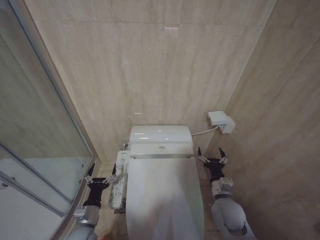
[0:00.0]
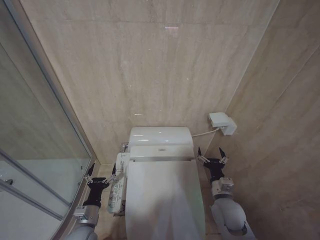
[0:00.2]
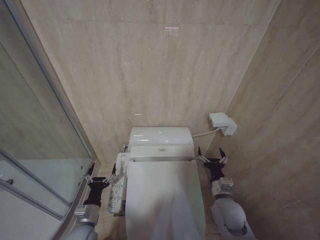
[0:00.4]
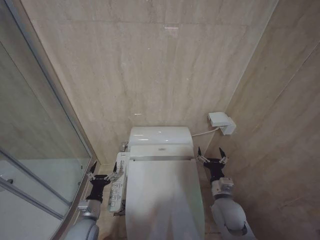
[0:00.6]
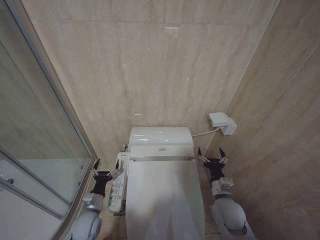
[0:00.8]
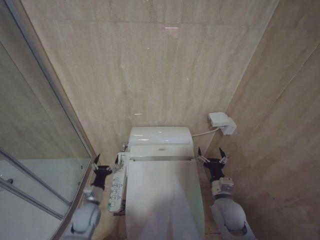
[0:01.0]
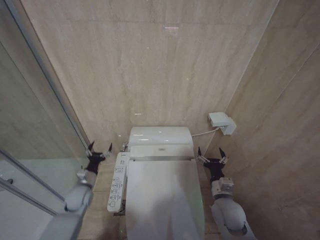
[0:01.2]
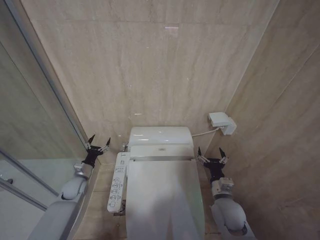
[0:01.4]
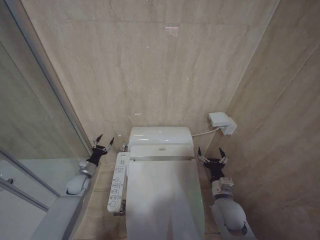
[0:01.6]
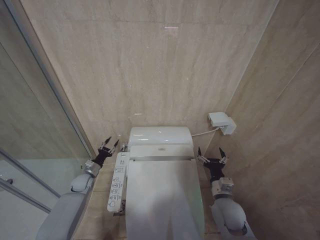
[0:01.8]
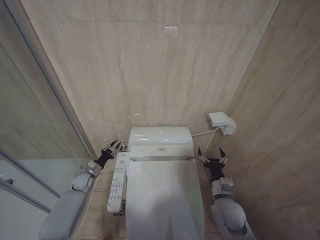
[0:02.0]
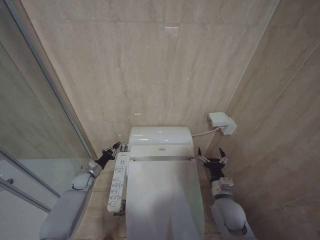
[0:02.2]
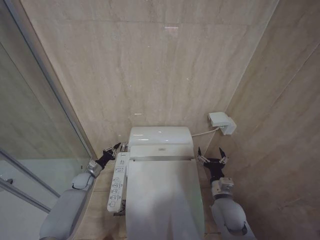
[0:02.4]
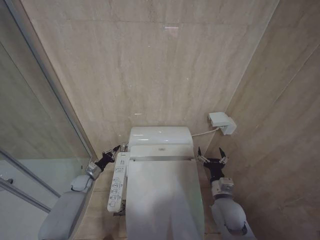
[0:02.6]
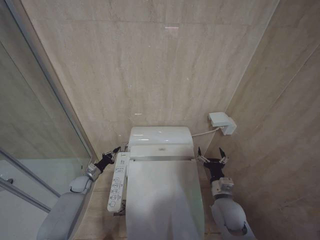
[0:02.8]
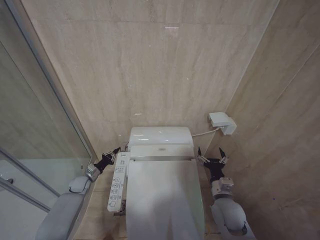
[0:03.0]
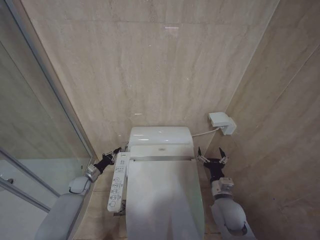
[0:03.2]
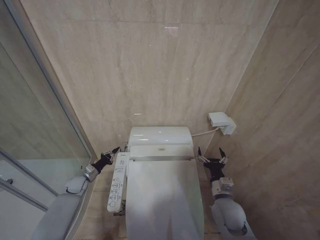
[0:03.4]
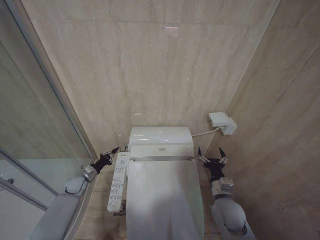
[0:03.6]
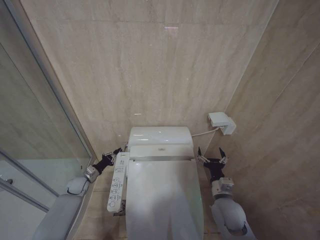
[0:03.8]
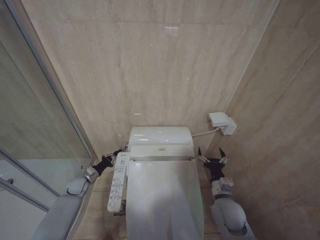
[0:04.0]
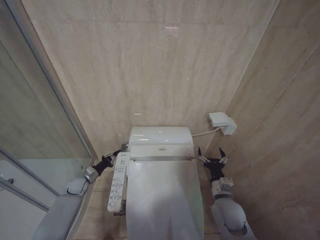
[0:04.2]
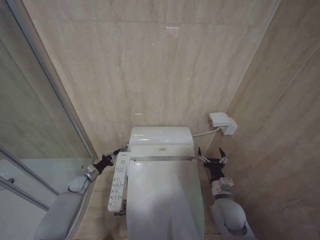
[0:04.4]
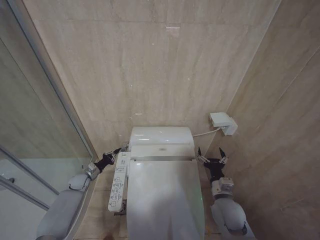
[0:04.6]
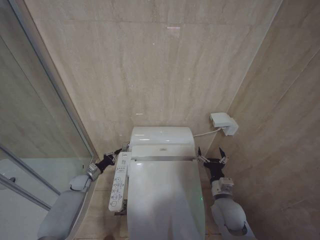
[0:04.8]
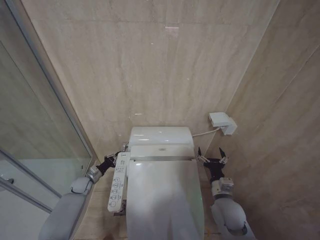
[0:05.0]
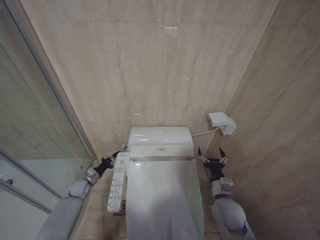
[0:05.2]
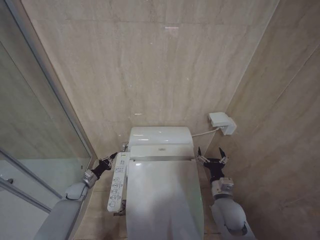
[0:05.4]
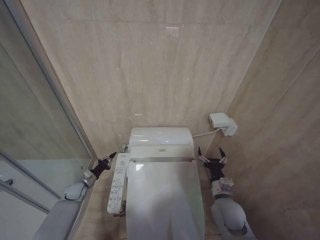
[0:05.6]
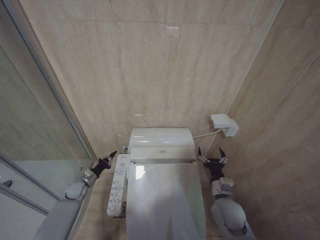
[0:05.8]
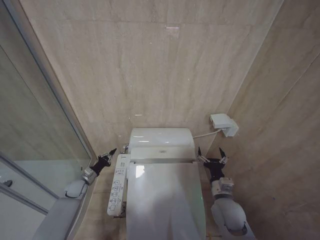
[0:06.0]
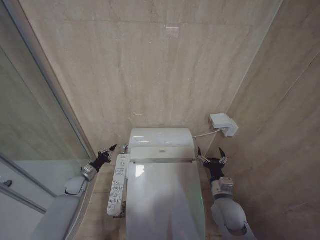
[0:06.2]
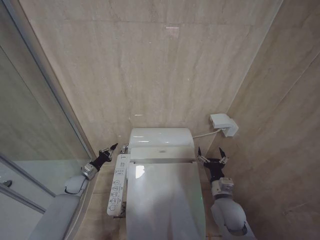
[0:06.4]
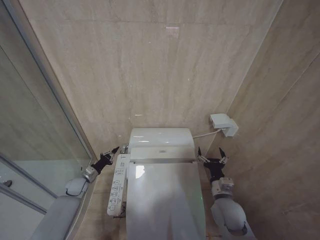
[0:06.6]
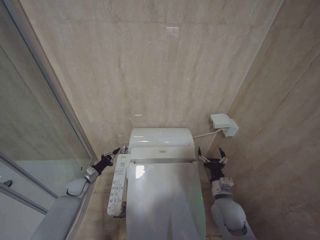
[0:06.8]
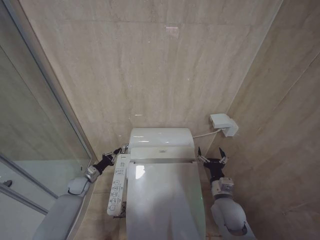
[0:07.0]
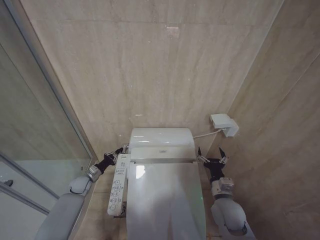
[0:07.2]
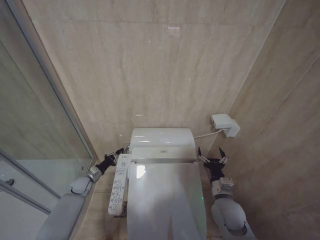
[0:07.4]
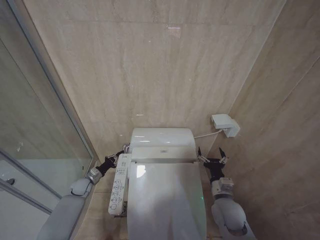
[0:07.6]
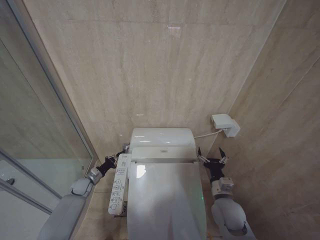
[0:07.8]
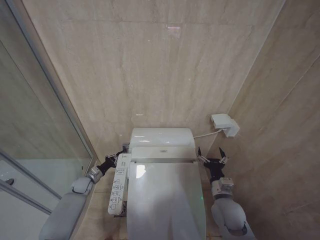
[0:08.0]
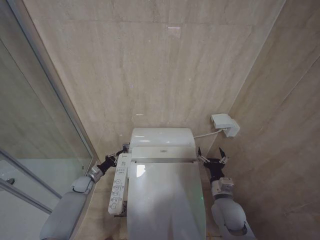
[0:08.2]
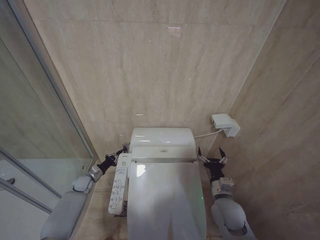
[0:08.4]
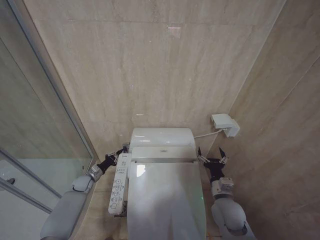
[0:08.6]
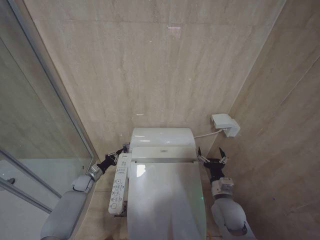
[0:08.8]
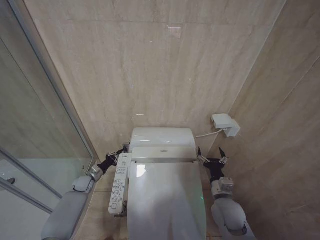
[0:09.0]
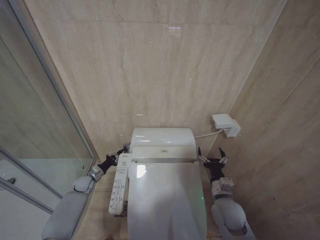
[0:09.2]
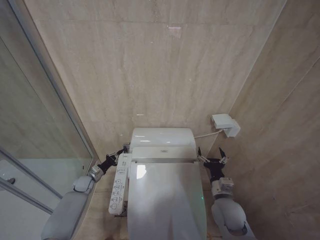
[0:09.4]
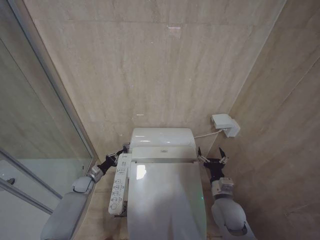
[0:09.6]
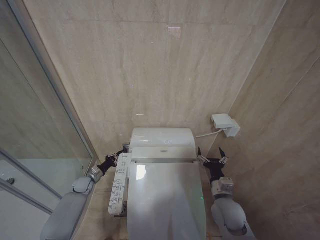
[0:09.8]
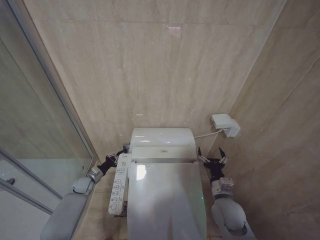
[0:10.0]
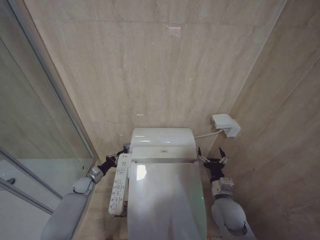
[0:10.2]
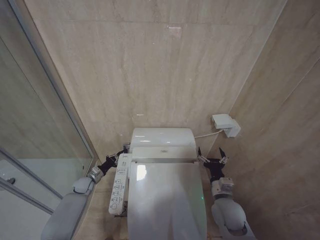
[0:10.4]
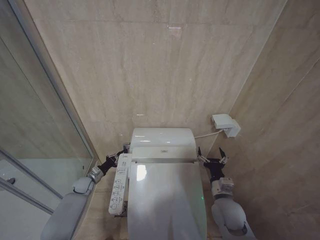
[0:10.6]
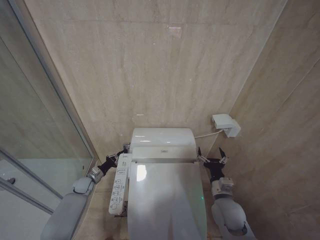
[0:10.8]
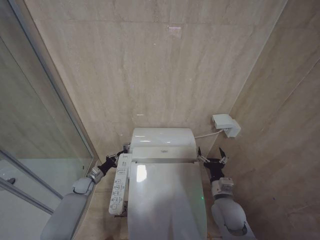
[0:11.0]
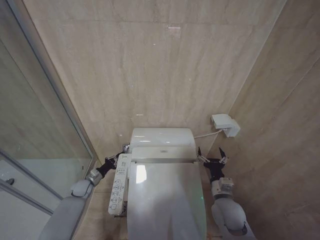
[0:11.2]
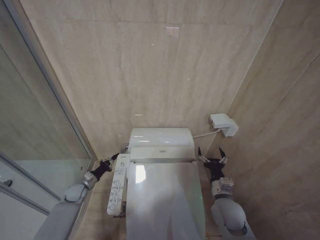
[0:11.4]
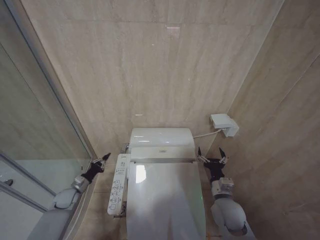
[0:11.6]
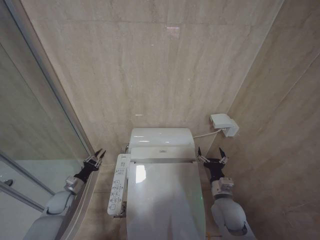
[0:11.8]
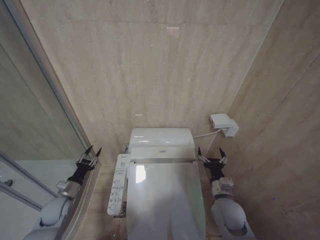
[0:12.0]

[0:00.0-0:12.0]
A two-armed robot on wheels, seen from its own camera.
Task of the whole recording: Open the toilet lid, clean the toilet bowl with a toilet brush, close the toilet lid, and flush.
0:00.0 to 0:01.6: The left gripper goes roughly 25 cm forward and to the left.
0:01.6 to 0:03.0: The left gripper shifts some 5 cm downward, and closes up.
0:04.4 to 0:07.6: There are only small adjustments of the grippers.
0:09.0 to 0:10.4: Both grippers stay put.
0:10.4 to 0:12.0: The left gripper goes approximately 10 cm backward and upward.

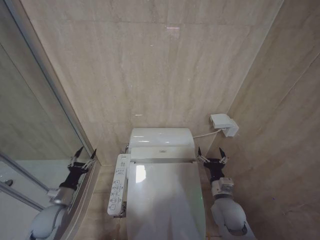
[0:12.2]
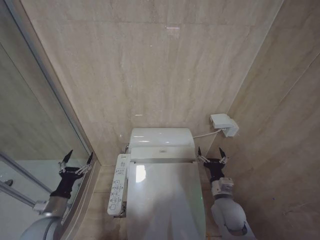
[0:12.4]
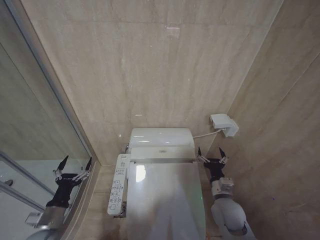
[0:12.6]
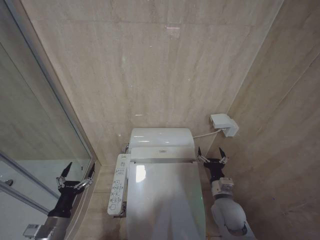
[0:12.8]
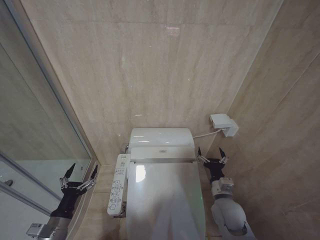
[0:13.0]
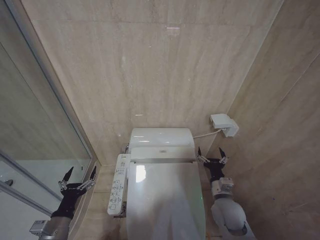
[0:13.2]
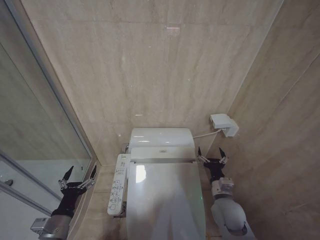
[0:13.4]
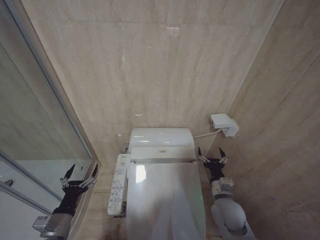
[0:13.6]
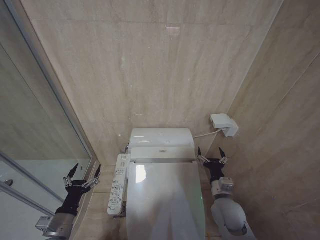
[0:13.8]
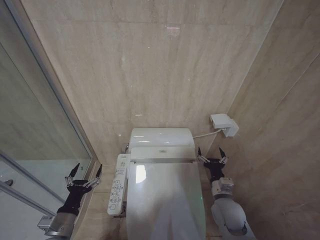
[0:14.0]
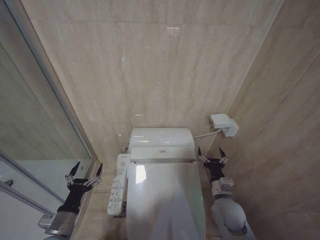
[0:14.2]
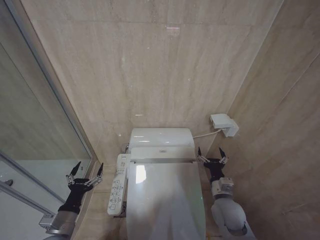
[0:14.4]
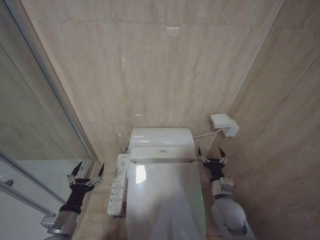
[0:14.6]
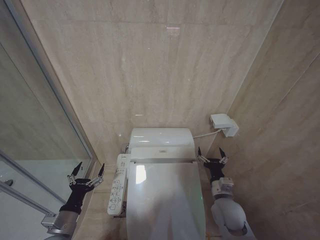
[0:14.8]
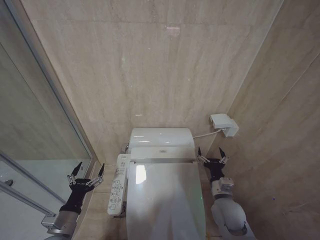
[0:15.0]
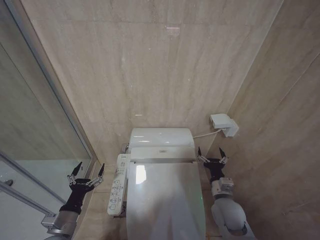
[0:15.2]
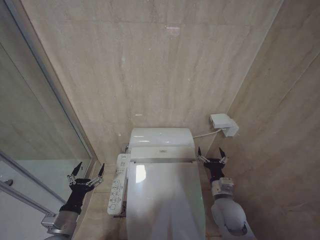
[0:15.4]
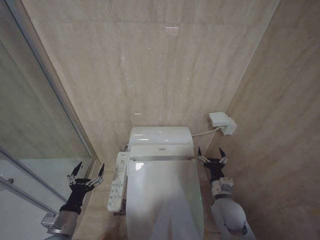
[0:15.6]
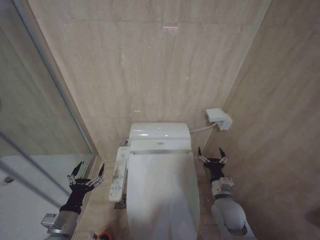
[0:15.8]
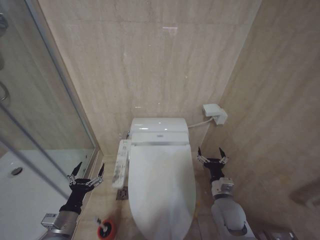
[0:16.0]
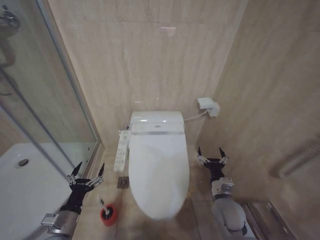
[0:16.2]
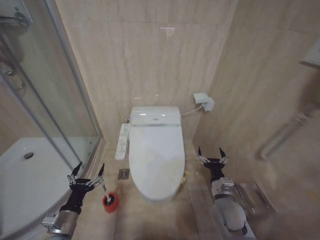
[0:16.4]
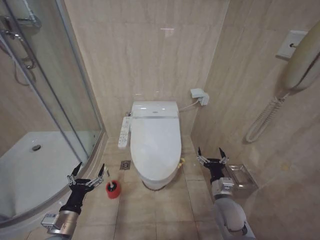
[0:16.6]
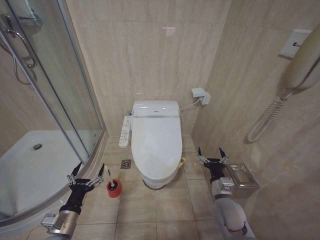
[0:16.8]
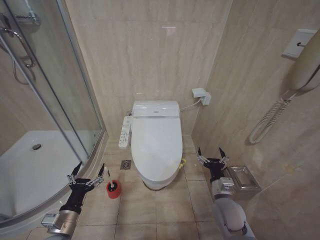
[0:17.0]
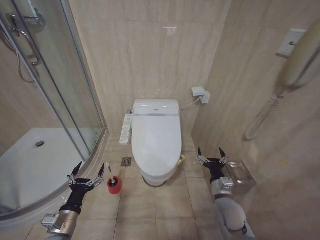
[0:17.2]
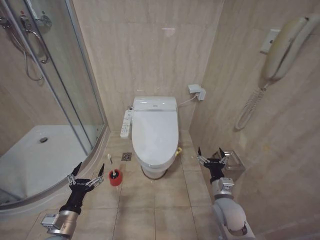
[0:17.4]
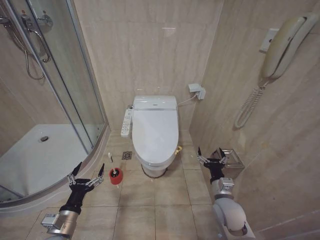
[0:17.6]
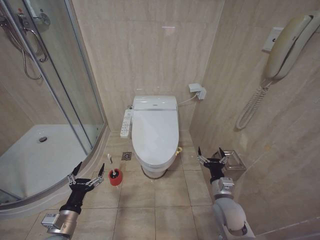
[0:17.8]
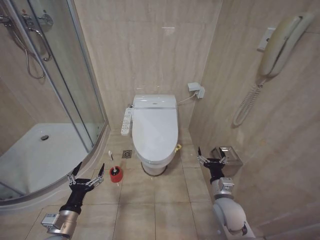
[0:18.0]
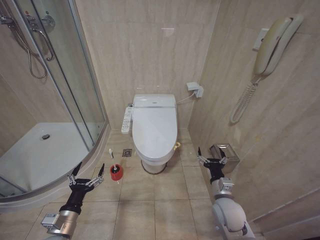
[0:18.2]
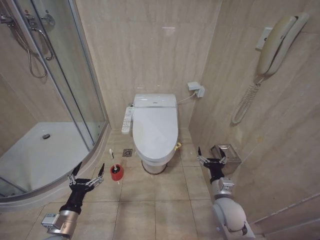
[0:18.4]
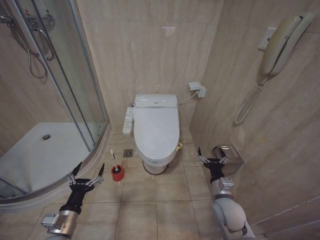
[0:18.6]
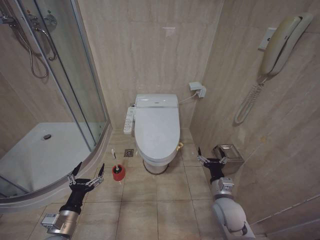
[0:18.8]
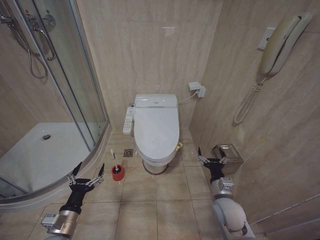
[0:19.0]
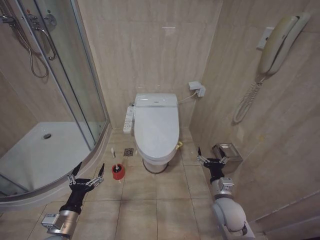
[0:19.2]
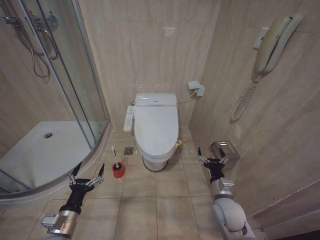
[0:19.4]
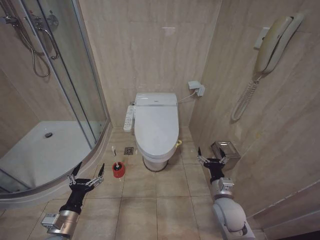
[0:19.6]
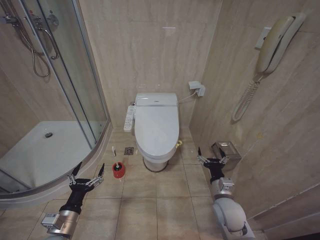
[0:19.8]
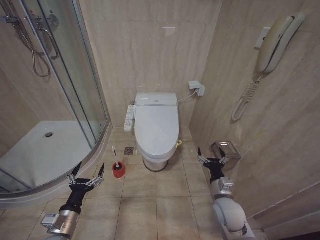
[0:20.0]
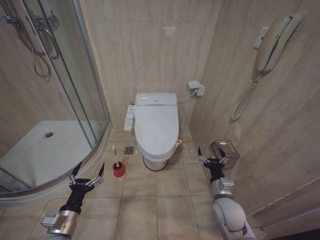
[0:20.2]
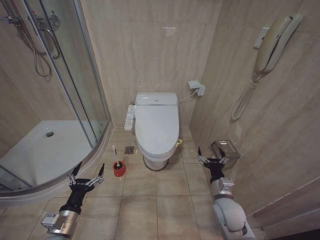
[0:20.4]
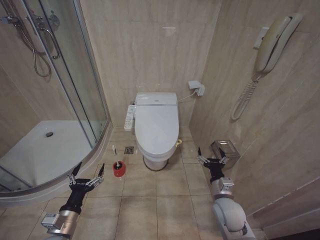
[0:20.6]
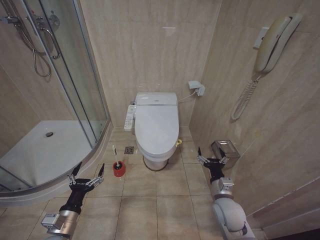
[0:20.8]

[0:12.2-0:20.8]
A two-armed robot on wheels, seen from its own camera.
Task of the whole recording: Open the toilet lid, clean the toilet bowl with a toilet brush, close the toilet lid, and flush.
0:12.2 to 0:13.6: The left gripper goes some 15 cm backward and to the right, and opens.
0:13.6 to 0:15.0: There are only small adjustments of the grippers.
0:16.6 to 0:20.8: Both grippers stay about where they are.
